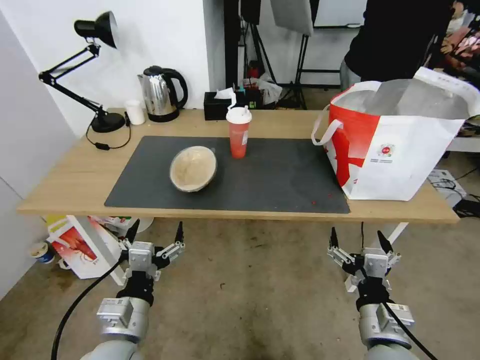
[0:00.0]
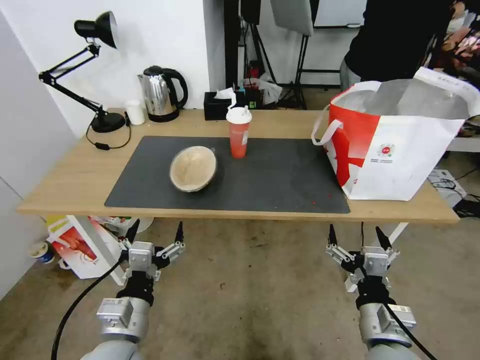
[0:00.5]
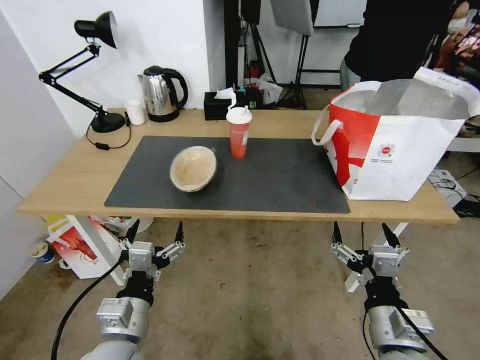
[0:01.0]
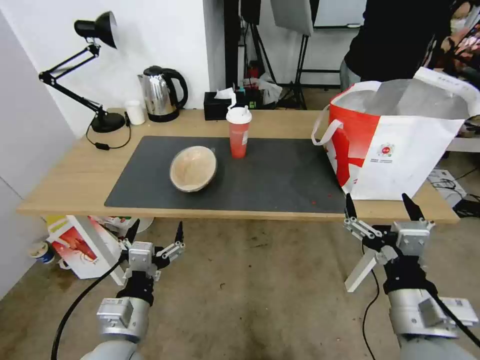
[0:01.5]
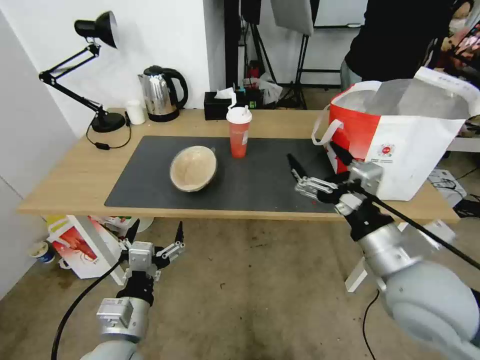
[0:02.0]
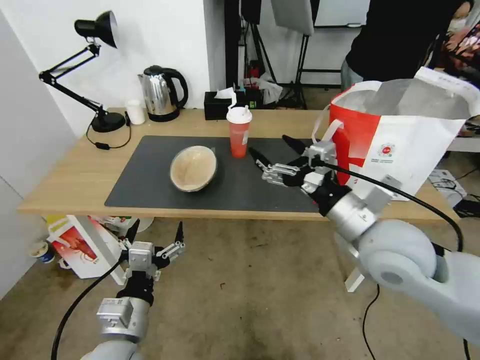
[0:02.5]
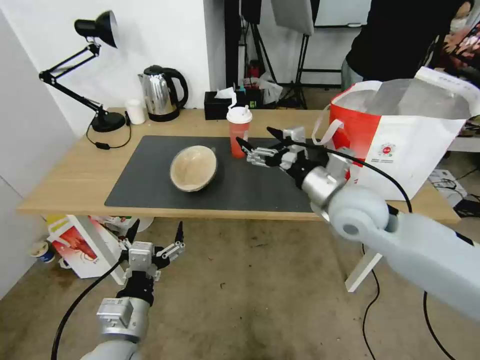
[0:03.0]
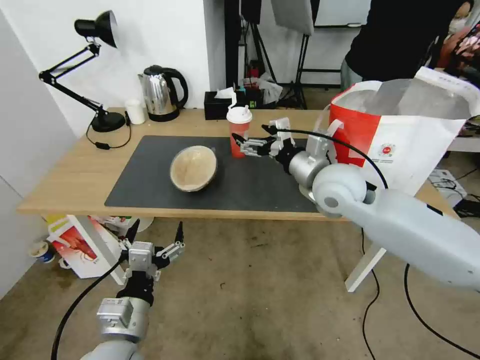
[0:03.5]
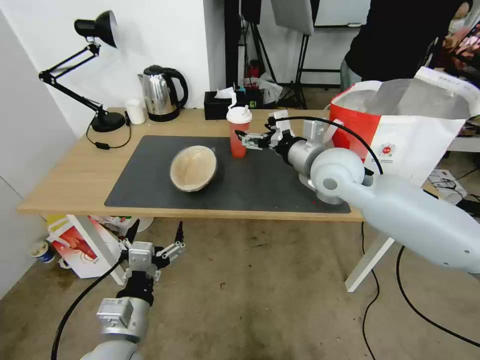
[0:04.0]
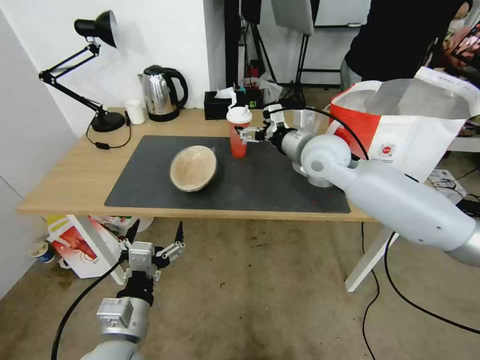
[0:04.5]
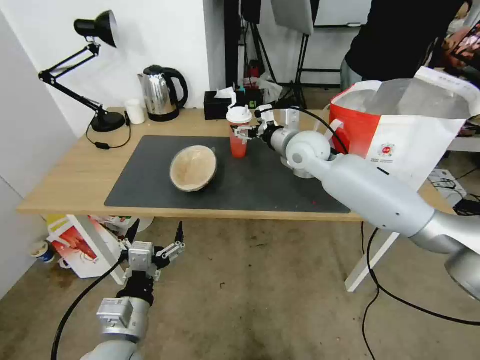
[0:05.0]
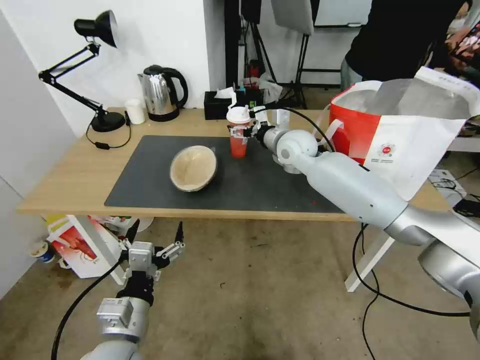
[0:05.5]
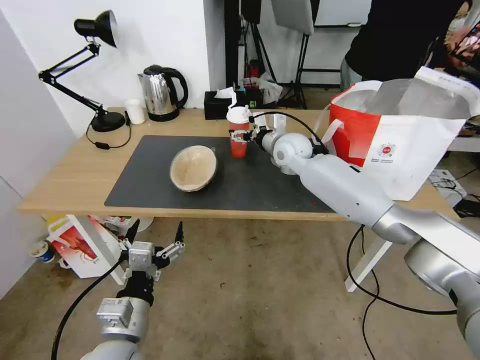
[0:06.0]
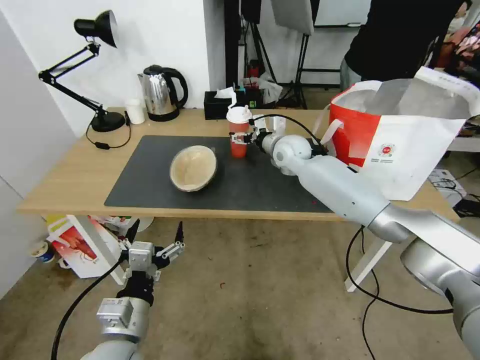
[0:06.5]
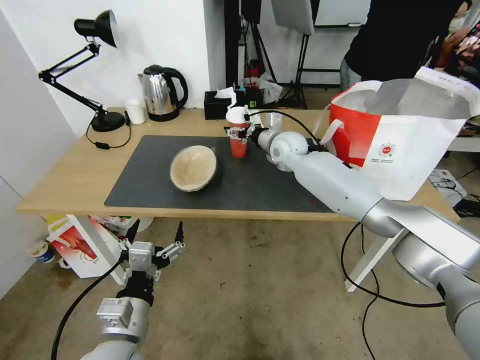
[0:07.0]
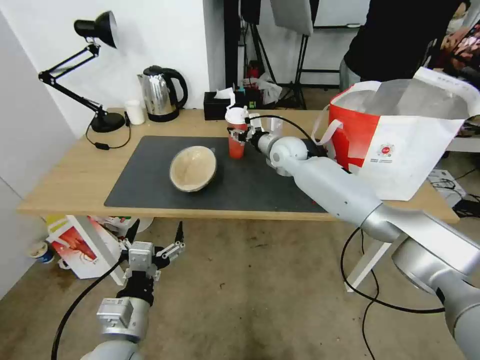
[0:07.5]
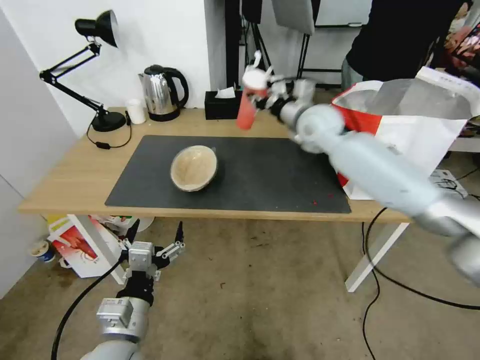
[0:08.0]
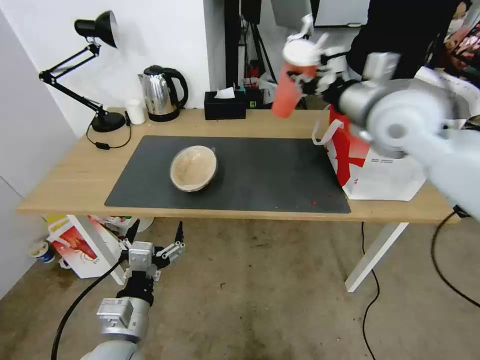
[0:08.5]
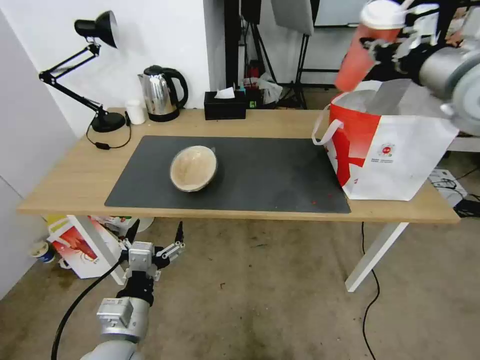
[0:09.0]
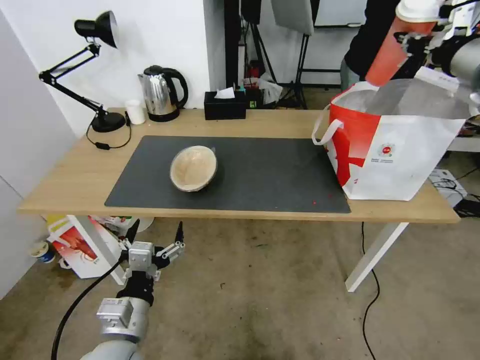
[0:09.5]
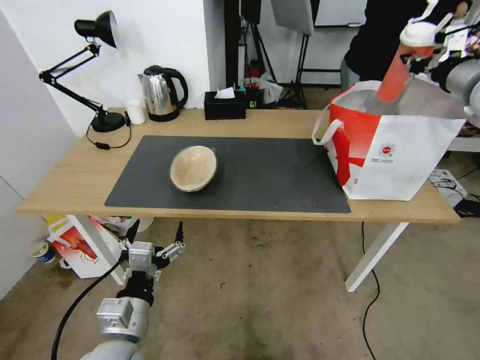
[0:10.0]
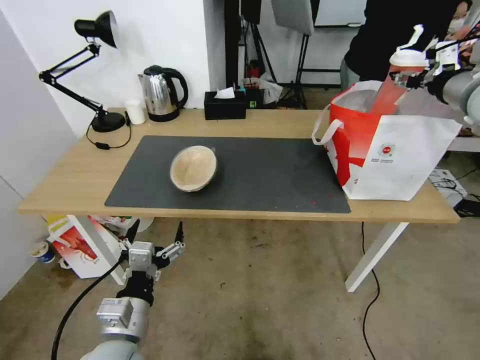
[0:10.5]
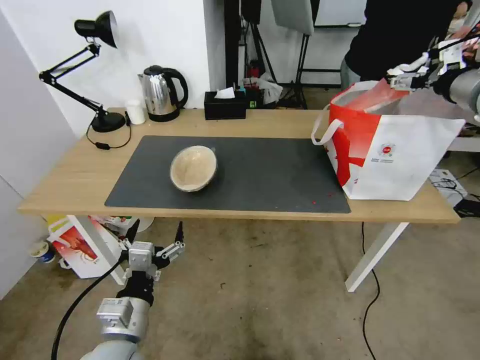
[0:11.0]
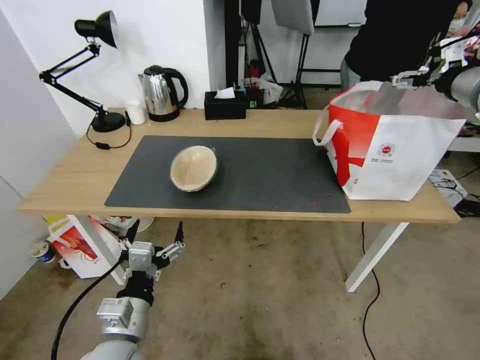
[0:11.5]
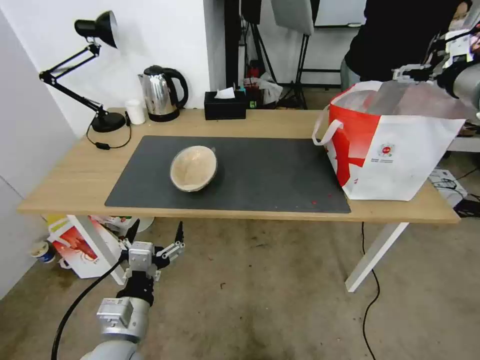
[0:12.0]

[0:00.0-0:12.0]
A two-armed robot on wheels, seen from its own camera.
Task of the whole recording: Pick up the trash from the table and place it into the takeout bag.
0:00.0 to 0:02.0: The right gripper shifts roughly 15 cm upward and forward.
0:02.0 to 0:04.0: The right gripper goes approximately 20 cm forward.
0:04.0 to 0:06.0: The right gripper moves forward and downward, some 15 cm.
0:06.0 to 0:08.0: The right gripper moves upward, roughly 10 cm, and closes up.
0:08.0 to 0:10.0: The right gripper heads to the right and upward, covering about 30 cm.
0:10.0 to 0:12.0: The right gripper opens its fingers.

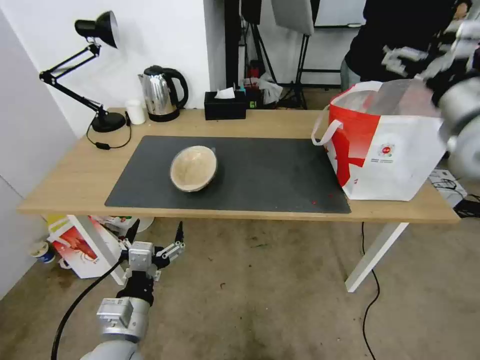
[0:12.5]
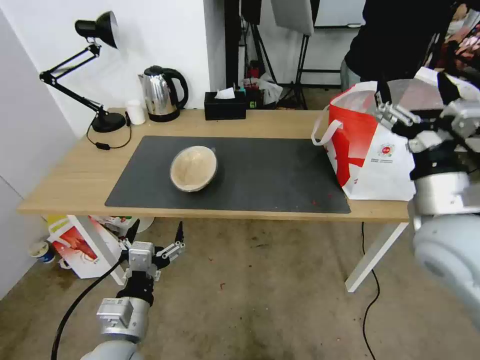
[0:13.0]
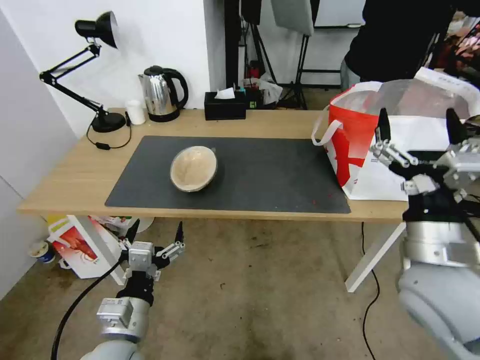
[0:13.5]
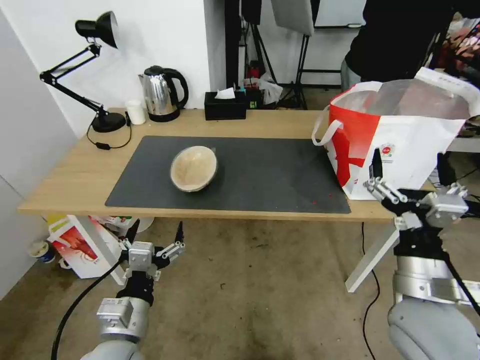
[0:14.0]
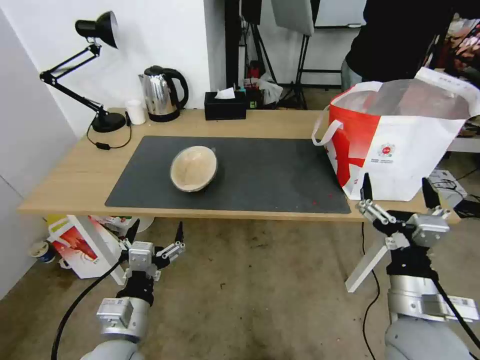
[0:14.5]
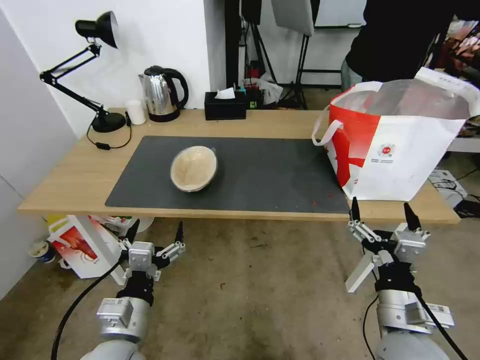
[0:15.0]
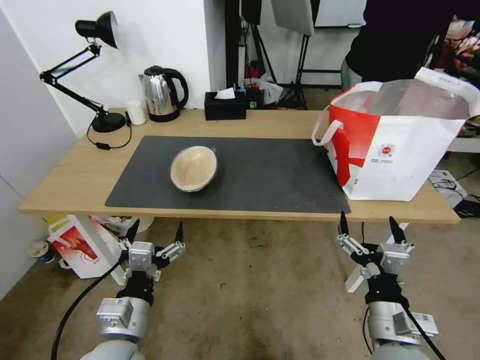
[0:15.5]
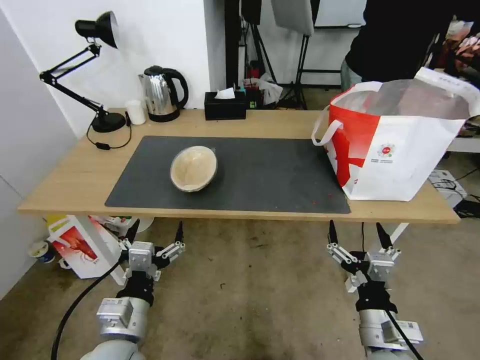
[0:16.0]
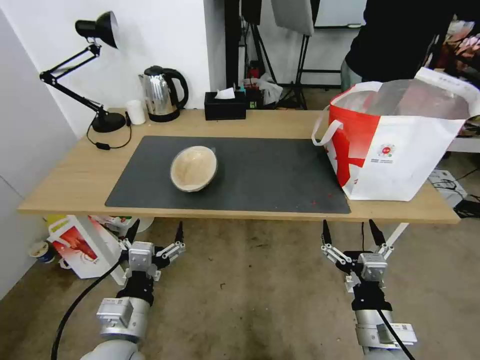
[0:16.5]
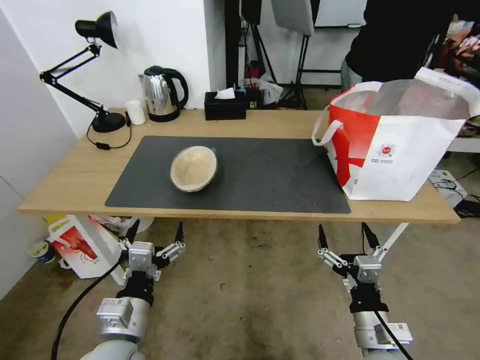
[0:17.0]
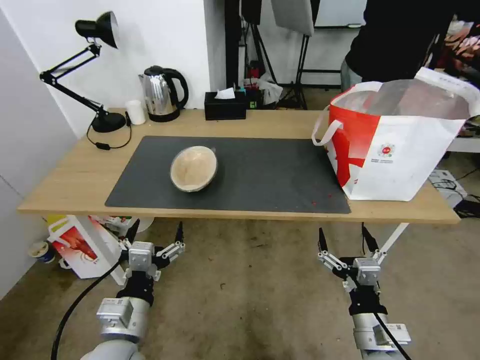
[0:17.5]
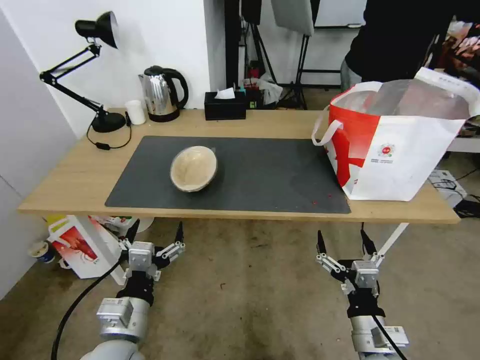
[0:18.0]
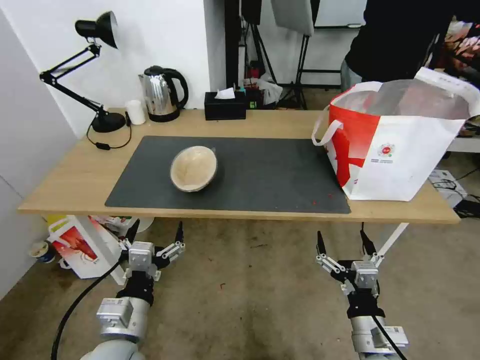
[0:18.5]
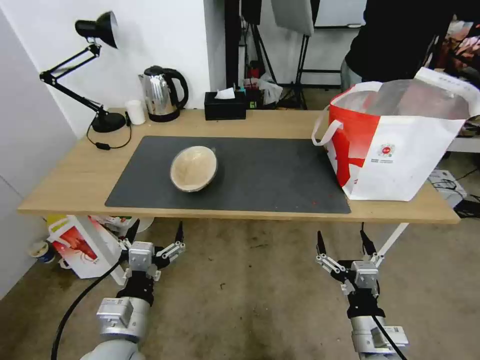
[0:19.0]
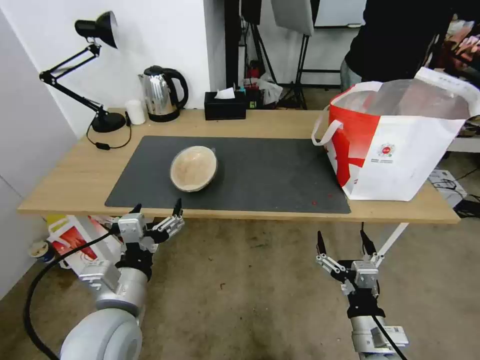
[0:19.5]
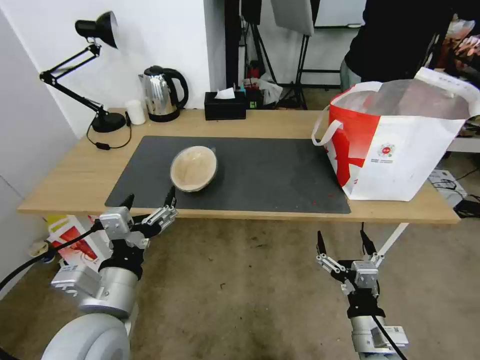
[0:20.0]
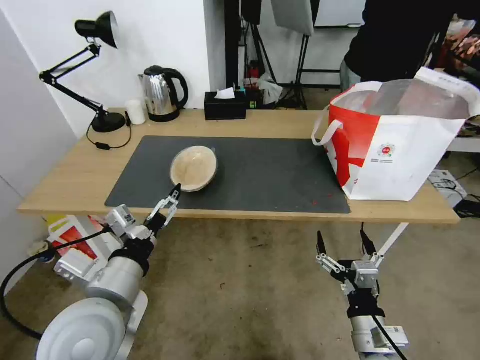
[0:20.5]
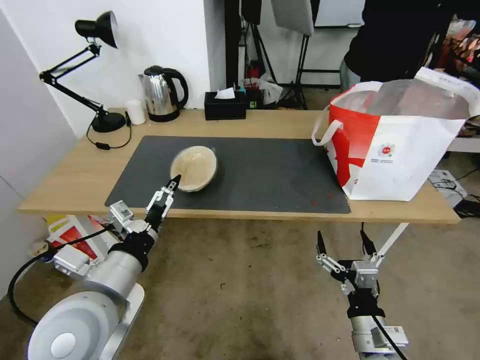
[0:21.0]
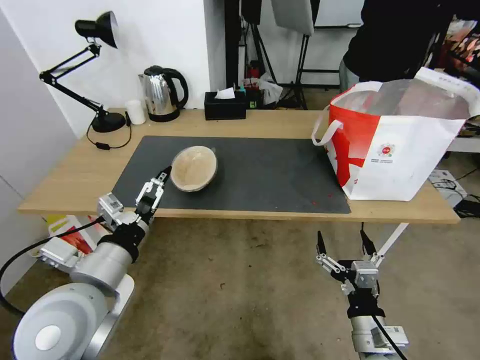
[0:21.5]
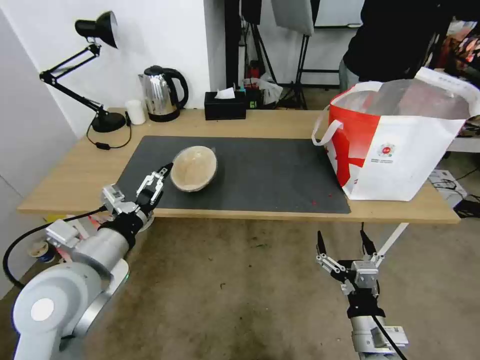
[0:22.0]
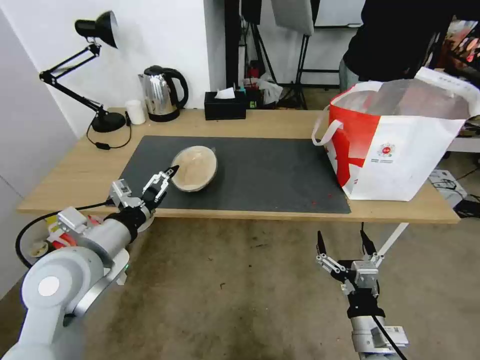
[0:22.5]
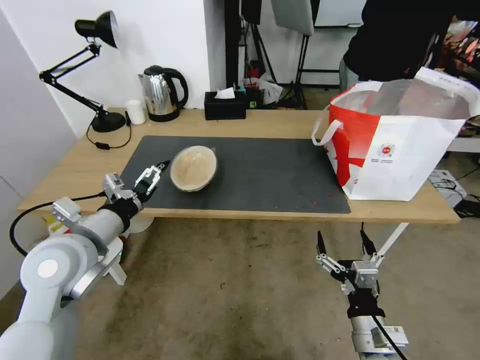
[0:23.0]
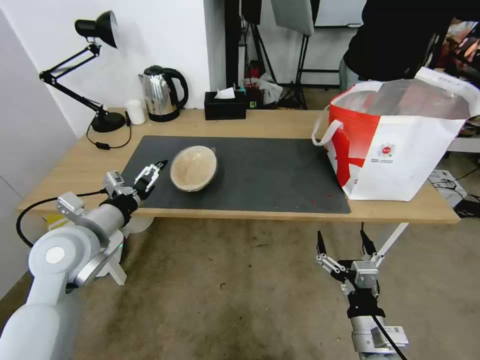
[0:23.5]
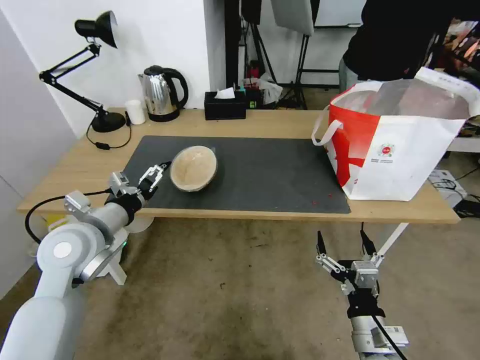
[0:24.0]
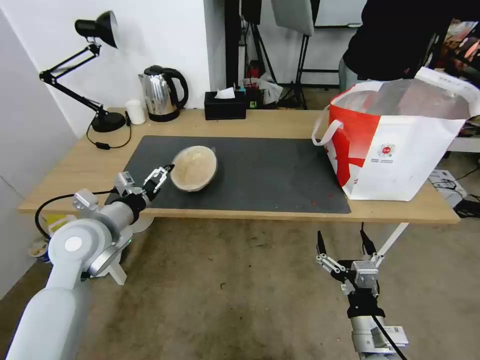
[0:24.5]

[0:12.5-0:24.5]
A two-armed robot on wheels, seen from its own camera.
Task of the whole recording: Pick up the trash from the table and place it into the takeout bag.
0:12.5 to 0:14.5: The right gripper moves downward, backward and to the left, some 30 cm.
0:14.5 to 0:16.5: The right gripper heads downward, covering approximately 10 cm.
0:16.5 to 0:18.5: The grippers stay close to where they were, moving slightly.
0:18.5 to 0:20.5: The left gripper moves upward, some 10 cm.
0:20.5 to 0:22.5: The left gripper moves forward and to the left, some 10 cm.
0:22.5 to 0:24.5: The left gripper shifts some 5 cm forward.

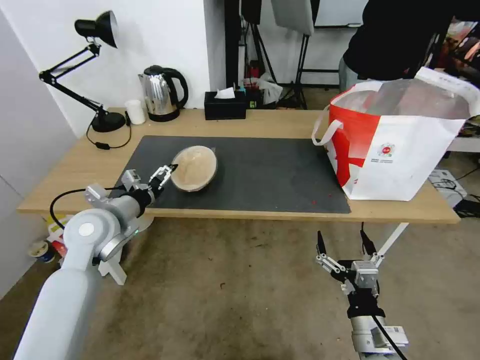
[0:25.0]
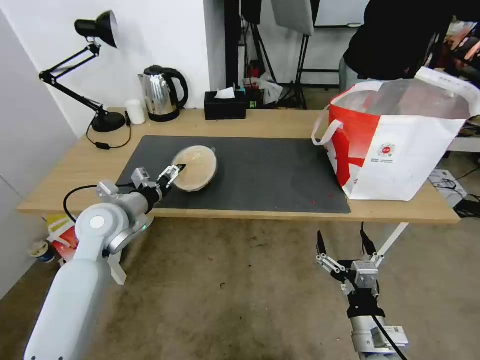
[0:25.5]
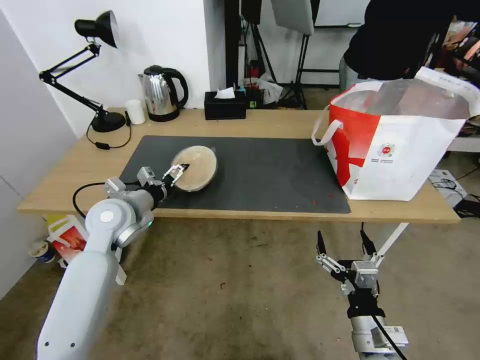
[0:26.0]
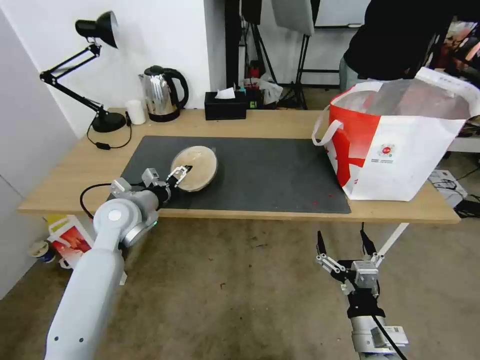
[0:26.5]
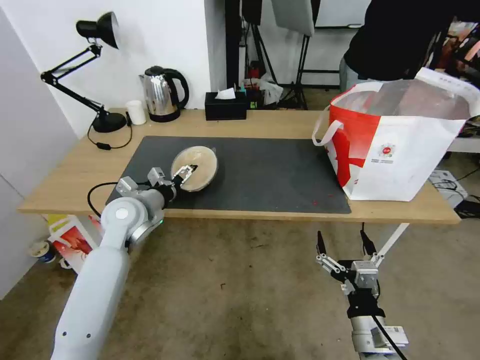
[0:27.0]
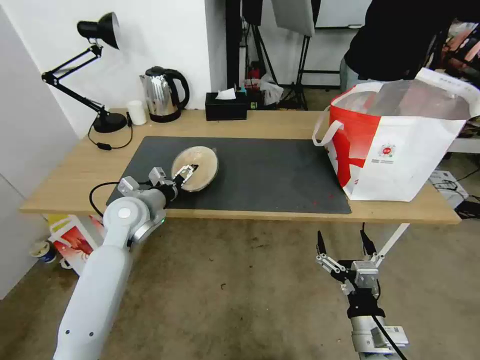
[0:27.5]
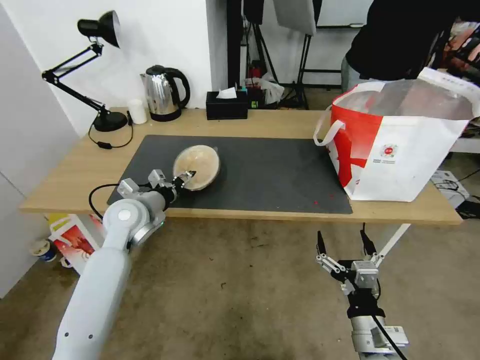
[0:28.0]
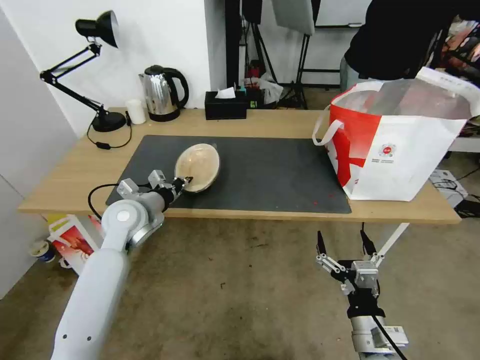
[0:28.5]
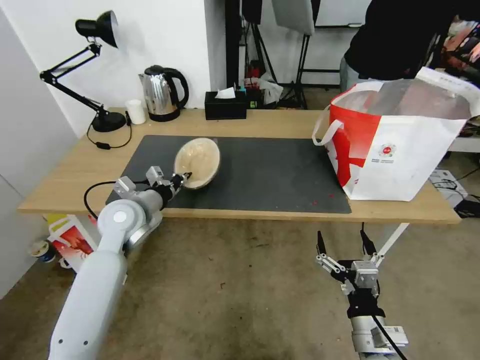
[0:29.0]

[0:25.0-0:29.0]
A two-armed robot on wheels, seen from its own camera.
Task of the whole recording: Pick up the trash from the table and place it into the takeout bag.
0:25.0 to 0:27.0: The left gripper heads forward, covering some 5 cm.
0:27.0 to 0:29.0: The left gripper closes up.
